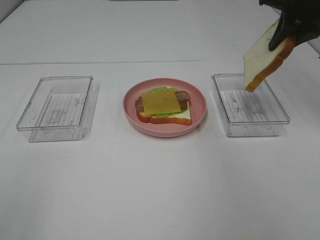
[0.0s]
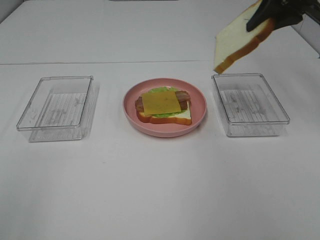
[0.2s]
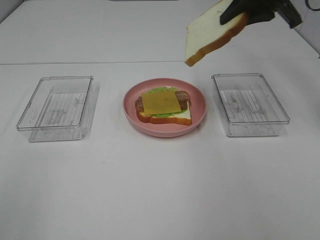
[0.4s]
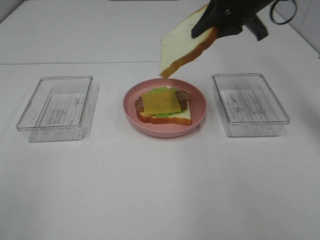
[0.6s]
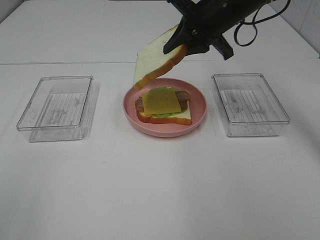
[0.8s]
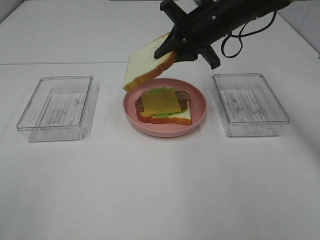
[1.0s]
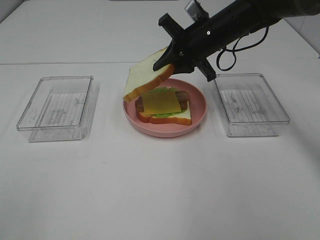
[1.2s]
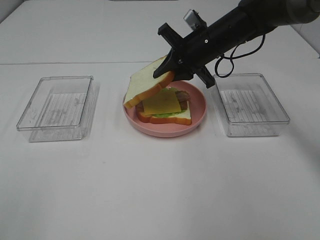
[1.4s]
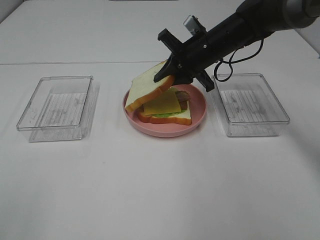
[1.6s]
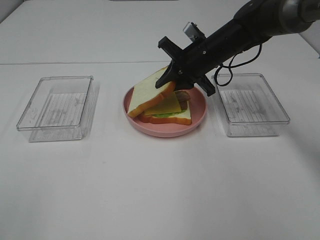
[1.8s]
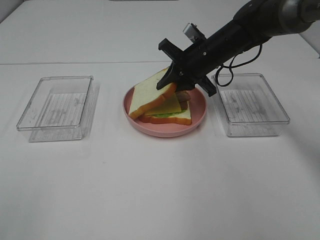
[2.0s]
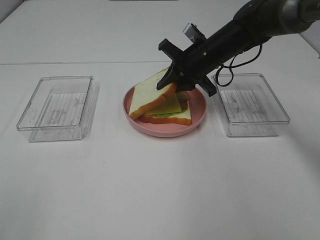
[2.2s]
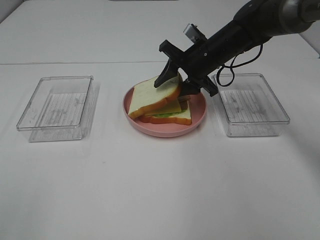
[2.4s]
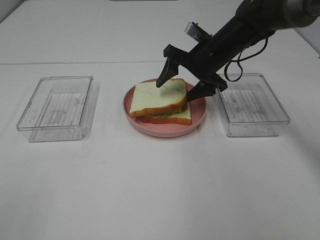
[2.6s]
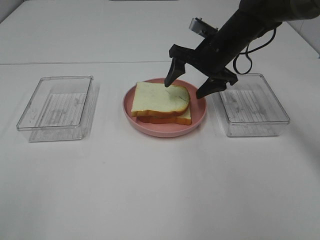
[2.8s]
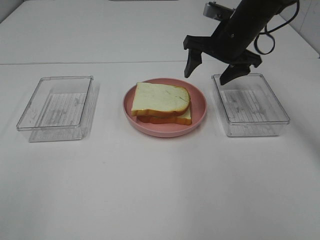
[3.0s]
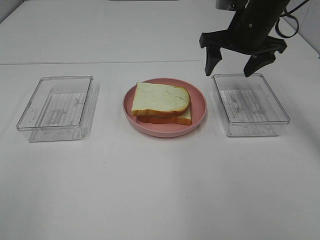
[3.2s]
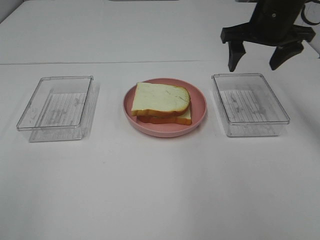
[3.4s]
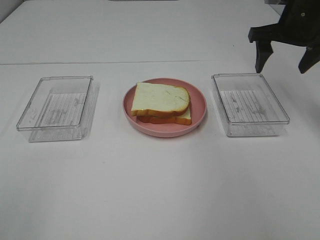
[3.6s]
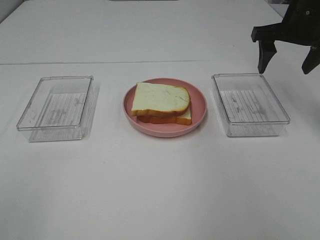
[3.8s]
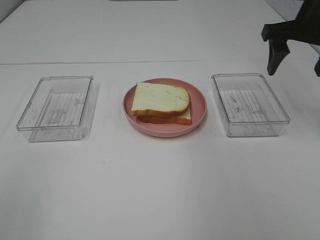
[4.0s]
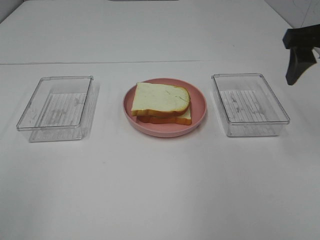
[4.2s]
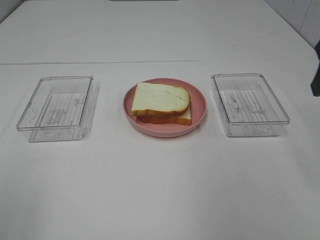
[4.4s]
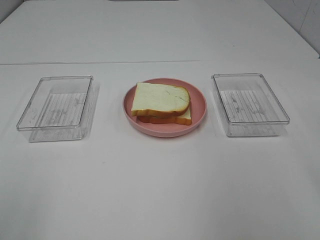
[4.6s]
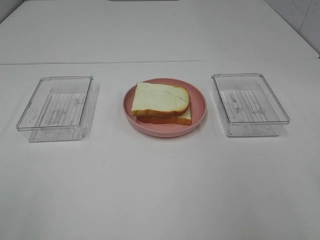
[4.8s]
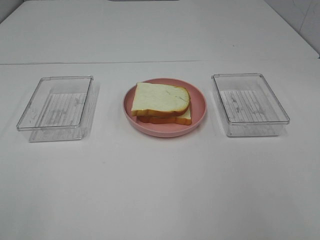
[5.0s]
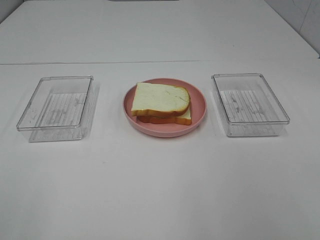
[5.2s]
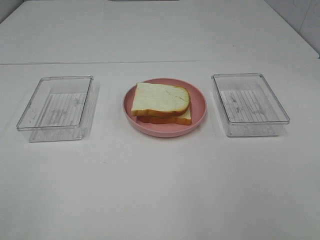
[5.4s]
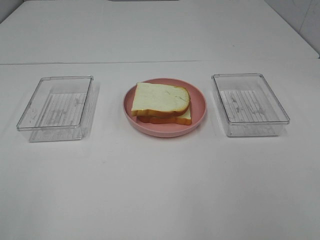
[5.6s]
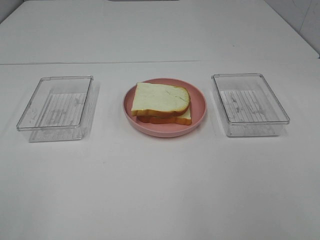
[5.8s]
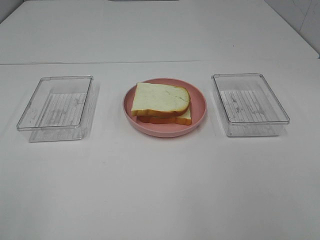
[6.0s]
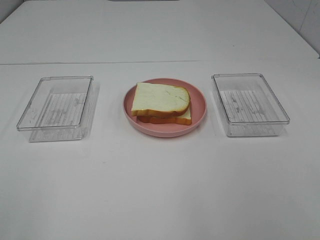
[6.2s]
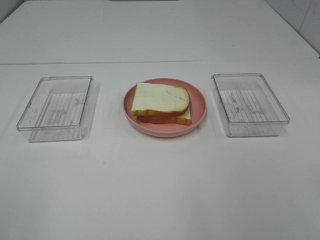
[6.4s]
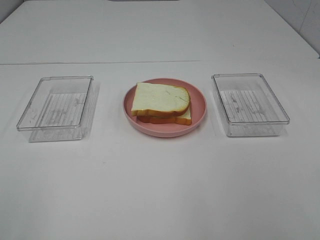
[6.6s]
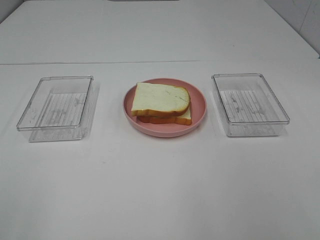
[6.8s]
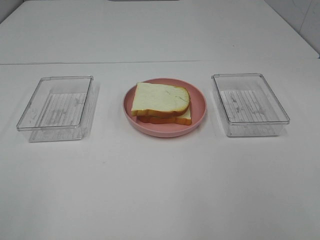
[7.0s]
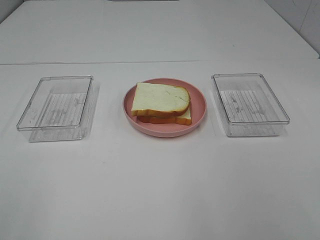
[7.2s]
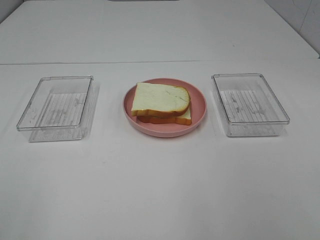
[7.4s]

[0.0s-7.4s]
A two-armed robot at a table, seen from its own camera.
Task of the whole recording: Make sandwiches.
Step, 0.0s to 2.8s: Right hand:place the bread slice on the cheese slice.
0.0s to 1.4s: The right gripper moves to the left and downward, about 20 cm.
1.4s to 3.0s: The right gripper ends up some 5 cm from where it was, and opens.
3.0s to 4.4s: The right gripper travels backward, to the right and upward by roughly 25 cm.
6.0s to 7.4s: The two grippers keep their place.

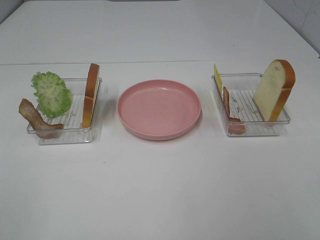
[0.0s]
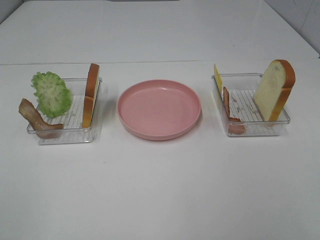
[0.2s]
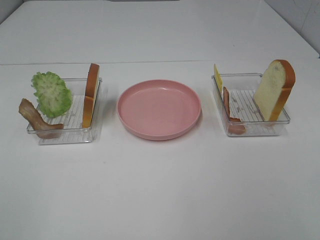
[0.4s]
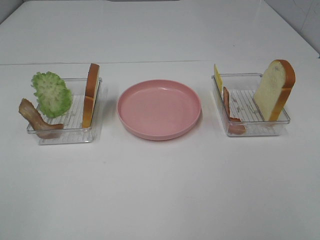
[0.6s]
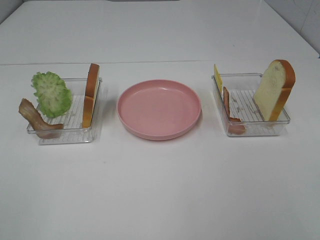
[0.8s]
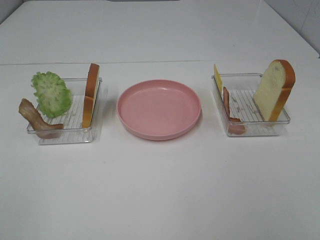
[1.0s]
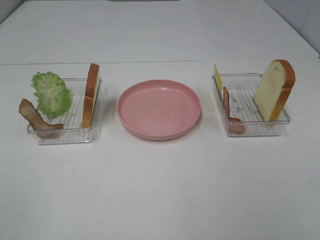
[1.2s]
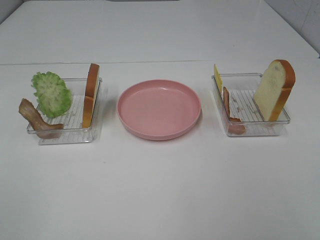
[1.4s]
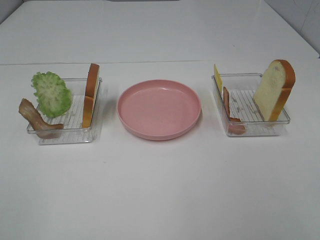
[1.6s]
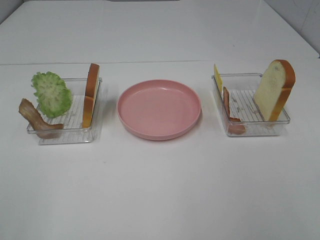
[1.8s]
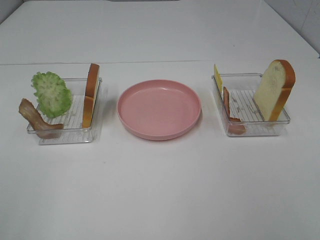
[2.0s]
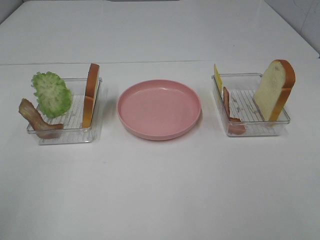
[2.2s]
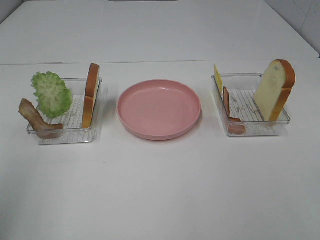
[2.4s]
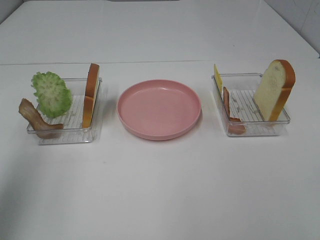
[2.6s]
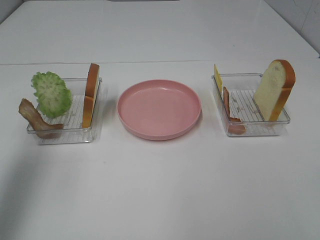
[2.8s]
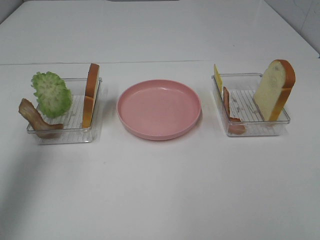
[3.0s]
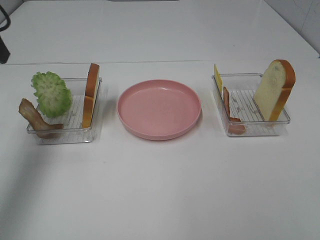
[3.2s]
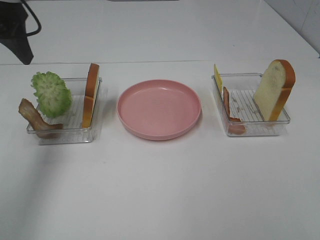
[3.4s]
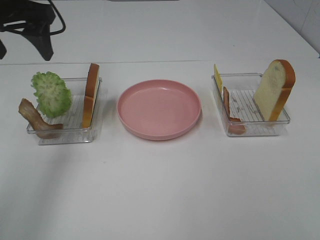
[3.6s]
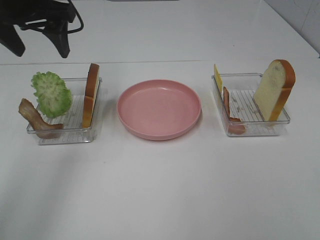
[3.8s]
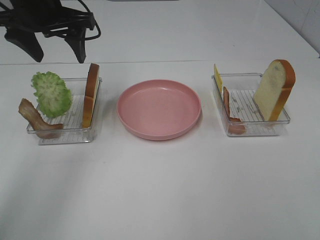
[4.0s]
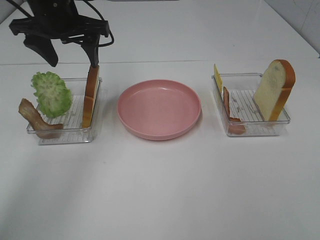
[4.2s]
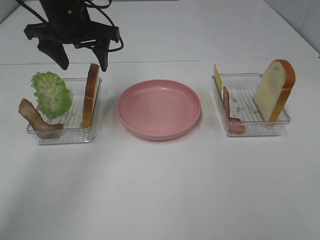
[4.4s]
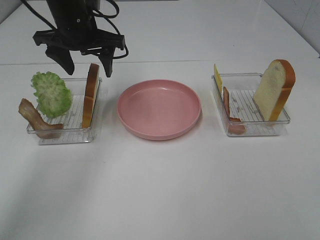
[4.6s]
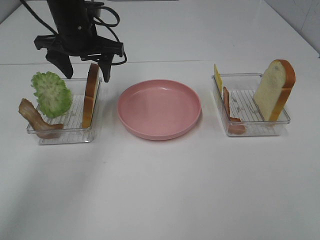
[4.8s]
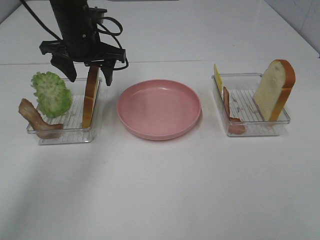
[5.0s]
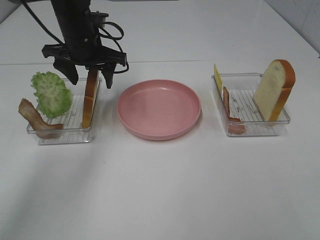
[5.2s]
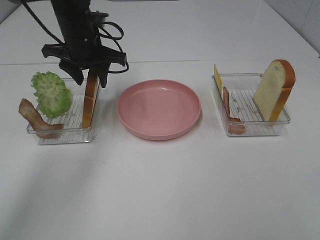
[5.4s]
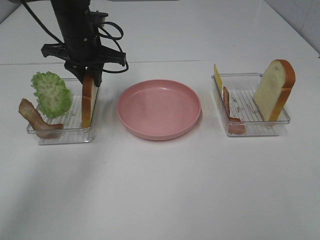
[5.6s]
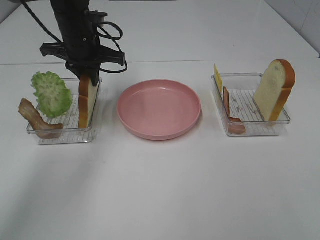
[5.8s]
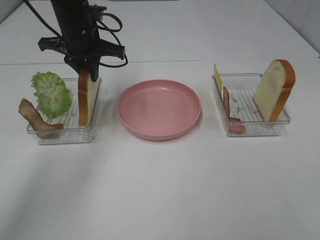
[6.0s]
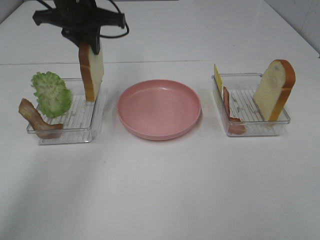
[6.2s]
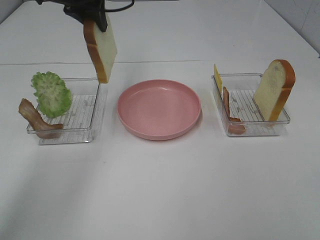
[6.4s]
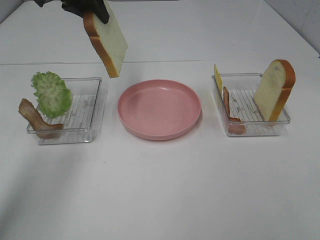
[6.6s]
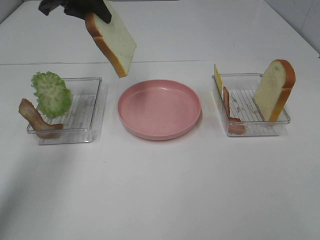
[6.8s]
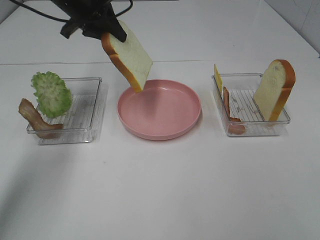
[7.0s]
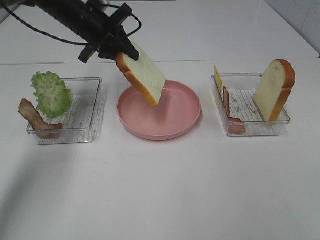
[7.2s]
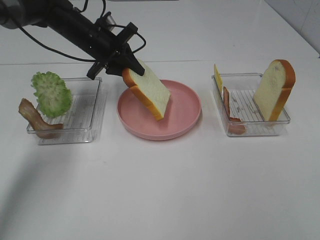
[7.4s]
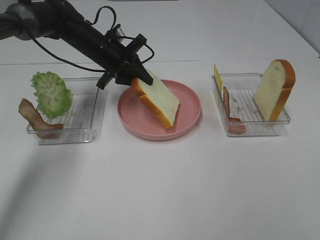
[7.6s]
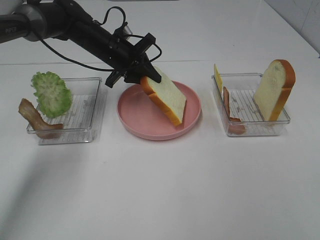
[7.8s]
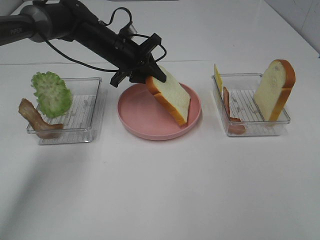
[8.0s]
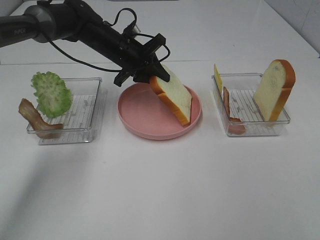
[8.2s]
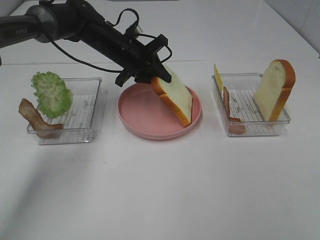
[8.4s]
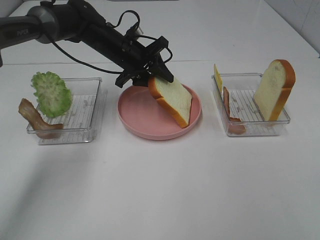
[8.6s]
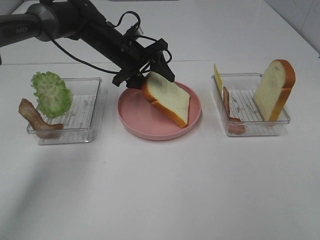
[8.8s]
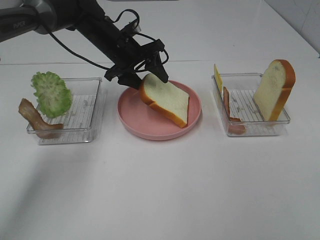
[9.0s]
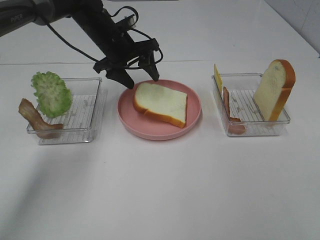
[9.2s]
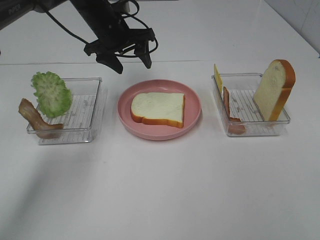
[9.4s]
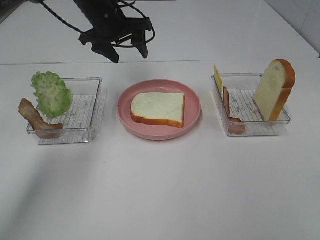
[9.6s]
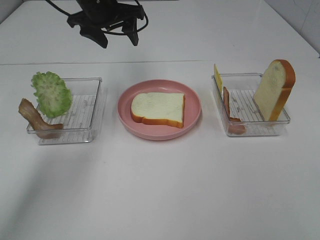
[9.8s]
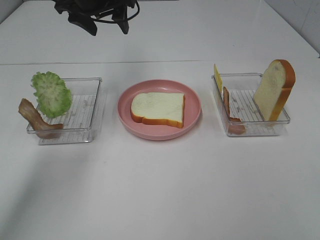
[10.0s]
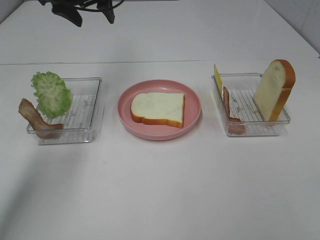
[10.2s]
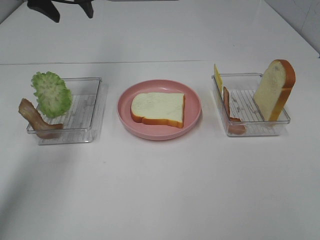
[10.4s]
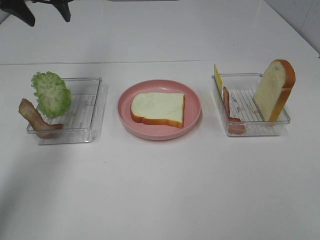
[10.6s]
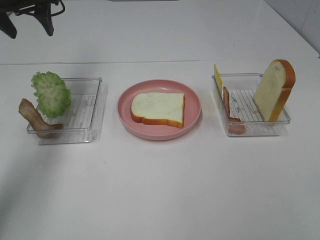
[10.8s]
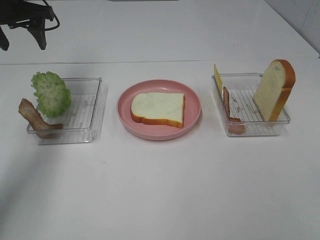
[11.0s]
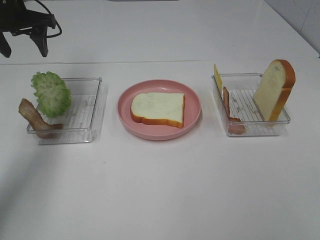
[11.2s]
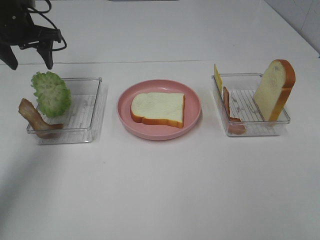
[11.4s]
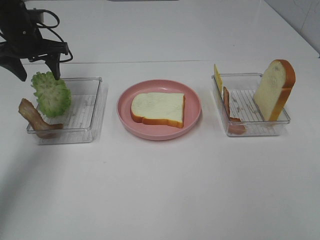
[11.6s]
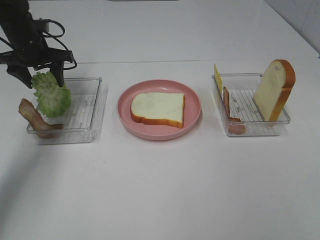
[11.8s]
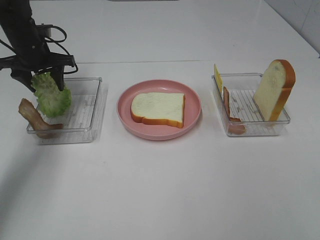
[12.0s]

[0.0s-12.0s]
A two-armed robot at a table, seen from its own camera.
Task of the whole recording: Make sandwiches.
Step, 0.0s to 5.6s: Left hand:grab the bread slice.
Step, 5.8s to 9.4s: Left hand:place the bread slice on the plate.
0.0s to 1.6s: Neither gripper changes place.
1.6s to 3.0s: The left gripper heads forward, covering approximately 25 cm.
3.0s to 4.4s: The left gripper is displaced forward, to the right and downward by roughly 25 cm.
4.4s to 6.0s: The left gripper closes up.
6.0s to 7.6s: The left gripper shifts some 5 cm downward.
7.6s to 9.0s: The left gripper opens.
9.0s to 10.4s: The left gripper travels upward and to the left by roughly 20 cm.
10.4s to 12.0s: The left gripper goes about 15 cm downward and to the left.

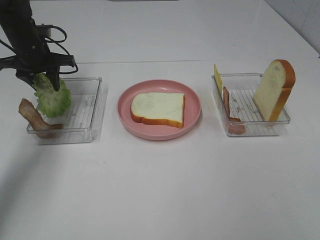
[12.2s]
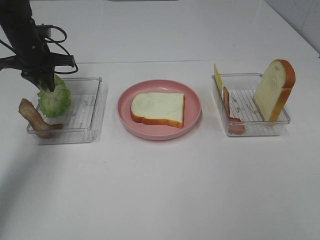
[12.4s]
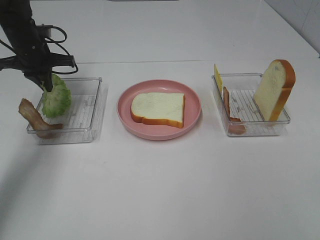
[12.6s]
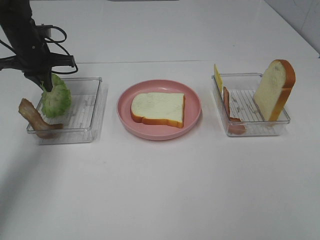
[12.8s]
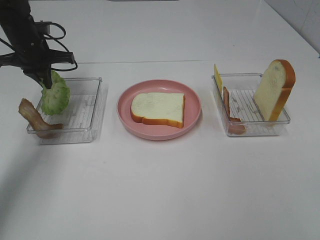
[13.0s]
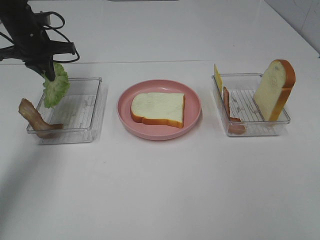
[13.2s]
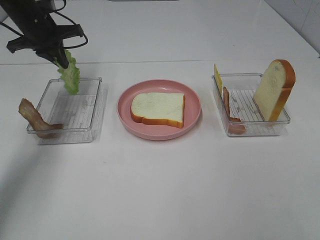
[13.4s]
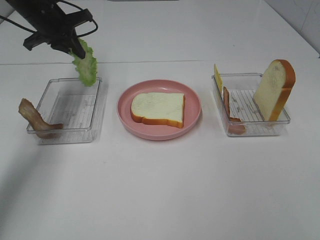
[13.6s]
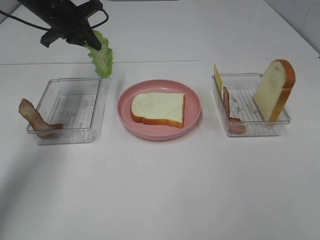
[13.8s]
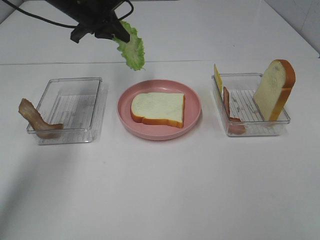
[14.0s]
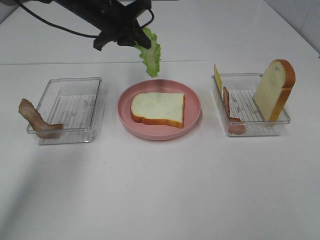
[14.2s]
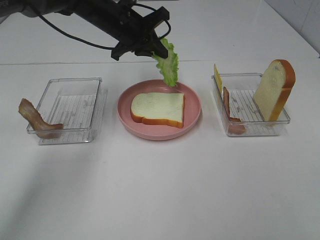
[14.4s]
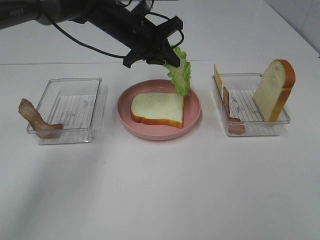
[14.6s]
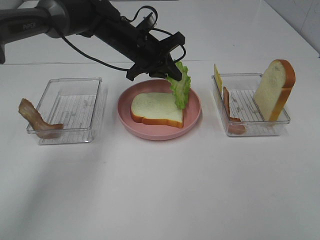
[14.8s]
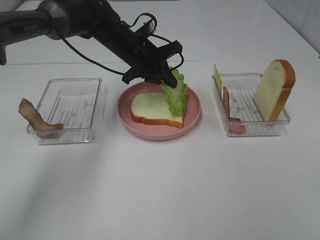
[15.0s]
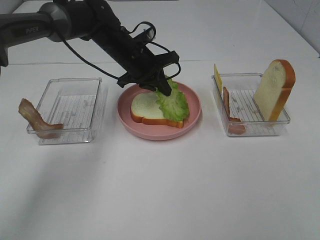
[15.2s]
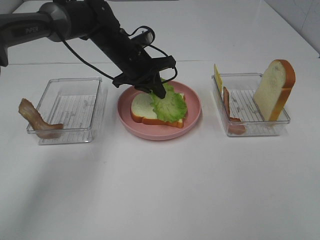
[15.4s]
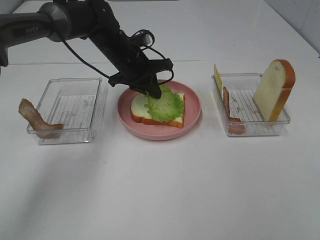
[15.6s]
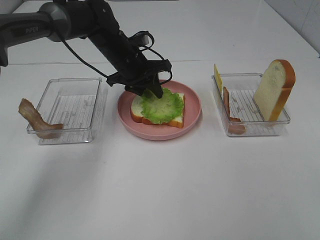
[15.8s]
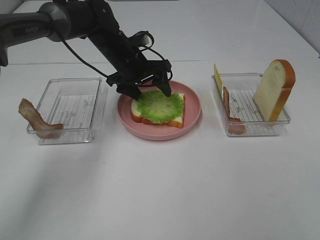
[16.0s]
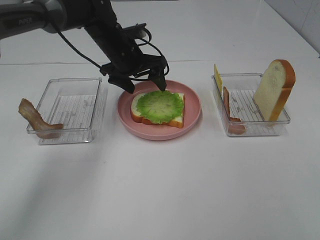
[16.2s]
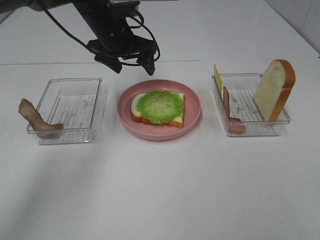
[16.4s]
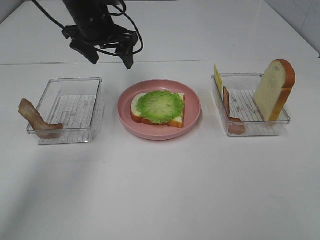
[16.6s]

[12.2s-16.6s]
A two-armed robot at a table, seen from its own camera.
Task of the whole recording: Make sandwiches.
Step, 13.0s to 16.4s: Left hand:place the lettuce slice on the bread slice.
12.2s to 13.6s: The left gripper goes roughly 5 cm upward, and closes up.
13.6s to 15.2s: The left gripper is displaced to the right and downward by some 20 cm.
15.2s to 16.6s: The left gripper goes roughly 10 cm upward and to the left, and opens its fingers.
